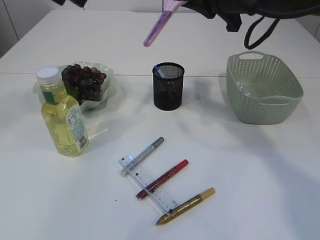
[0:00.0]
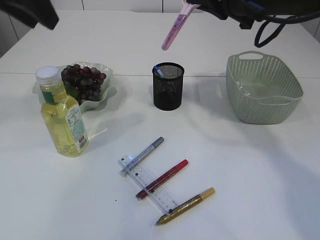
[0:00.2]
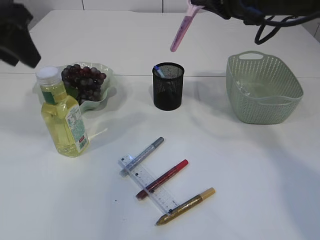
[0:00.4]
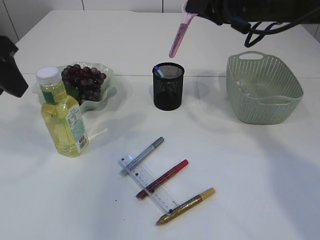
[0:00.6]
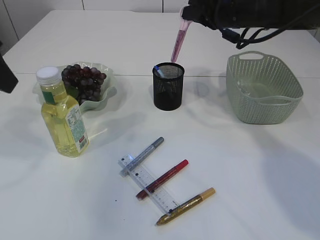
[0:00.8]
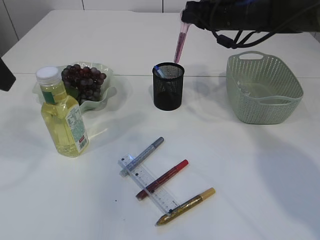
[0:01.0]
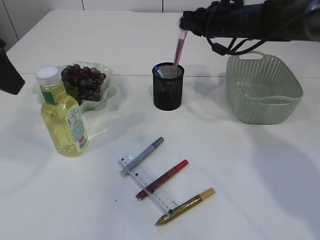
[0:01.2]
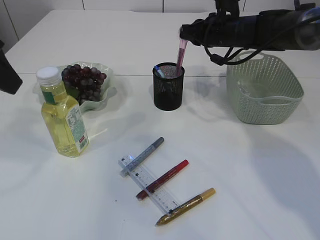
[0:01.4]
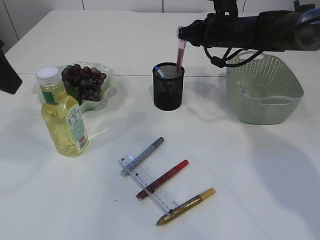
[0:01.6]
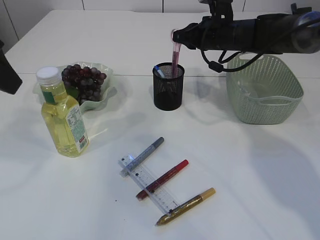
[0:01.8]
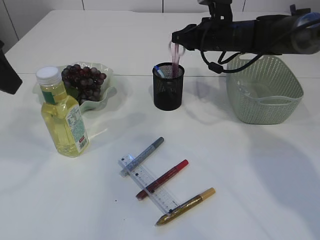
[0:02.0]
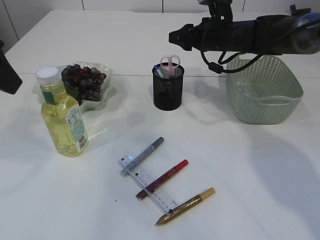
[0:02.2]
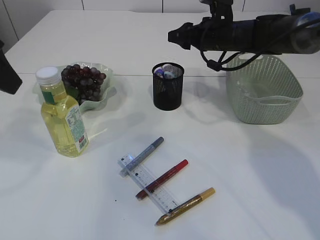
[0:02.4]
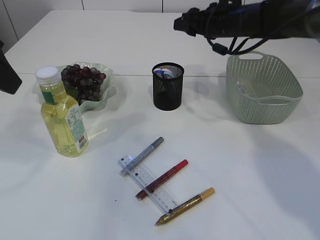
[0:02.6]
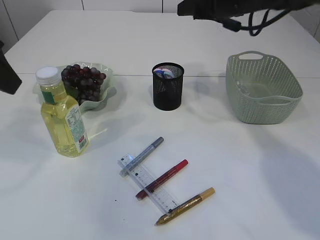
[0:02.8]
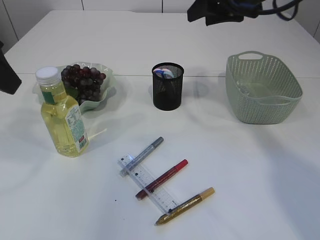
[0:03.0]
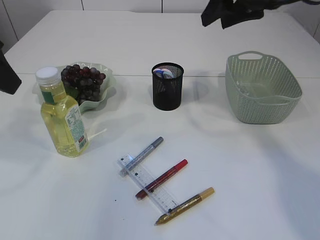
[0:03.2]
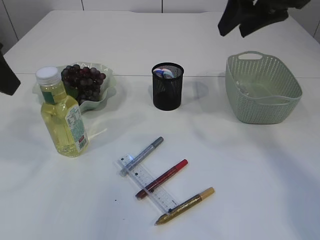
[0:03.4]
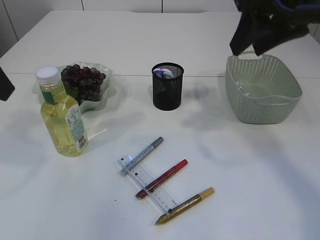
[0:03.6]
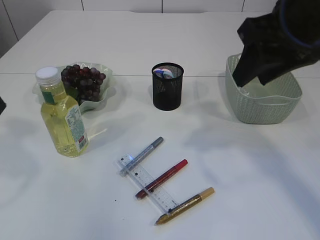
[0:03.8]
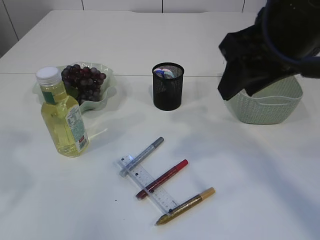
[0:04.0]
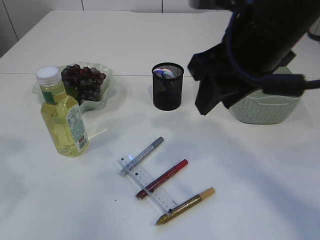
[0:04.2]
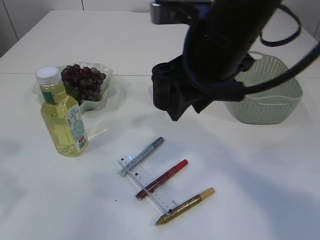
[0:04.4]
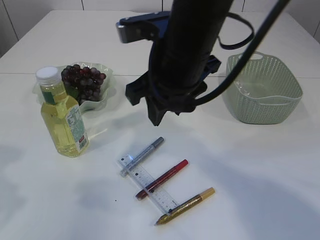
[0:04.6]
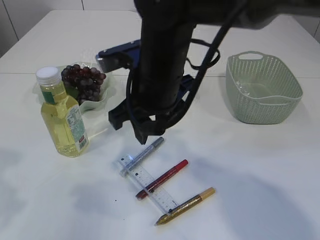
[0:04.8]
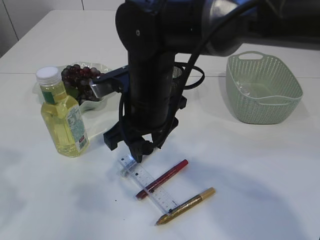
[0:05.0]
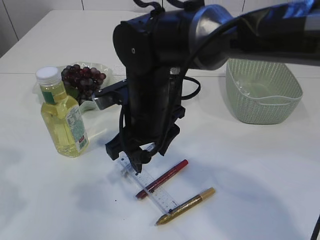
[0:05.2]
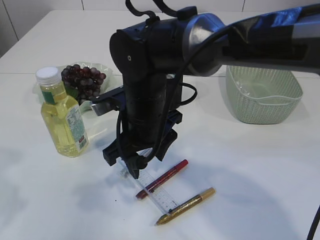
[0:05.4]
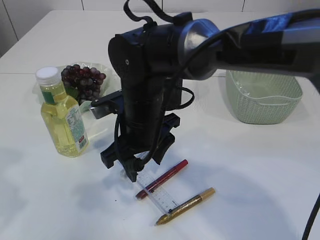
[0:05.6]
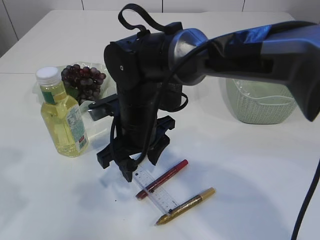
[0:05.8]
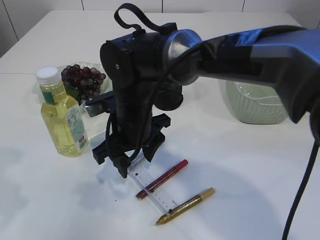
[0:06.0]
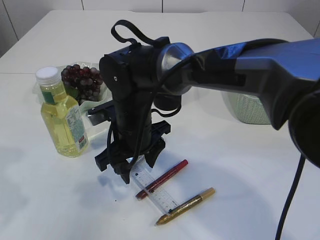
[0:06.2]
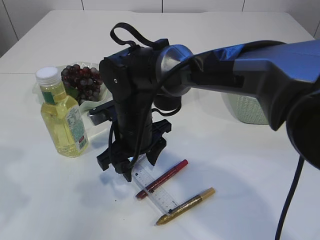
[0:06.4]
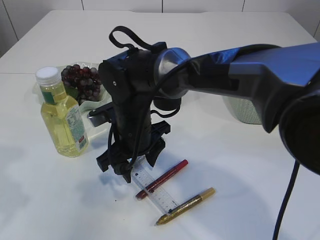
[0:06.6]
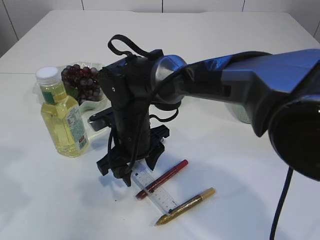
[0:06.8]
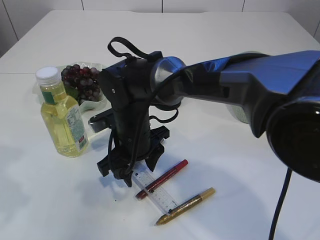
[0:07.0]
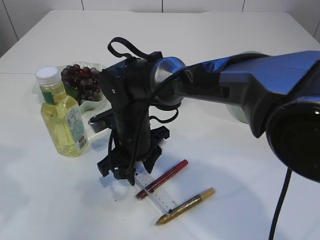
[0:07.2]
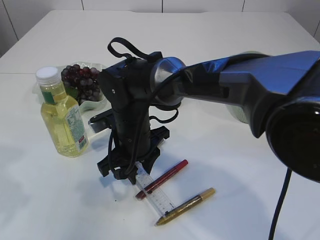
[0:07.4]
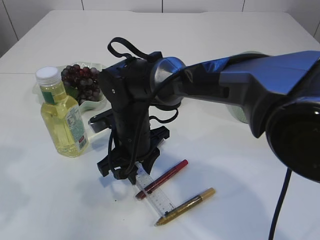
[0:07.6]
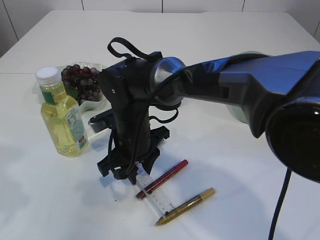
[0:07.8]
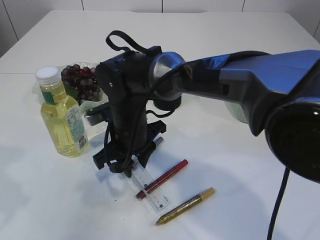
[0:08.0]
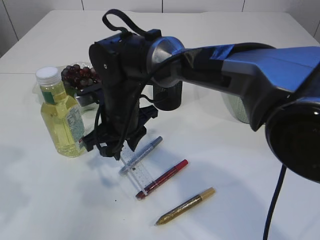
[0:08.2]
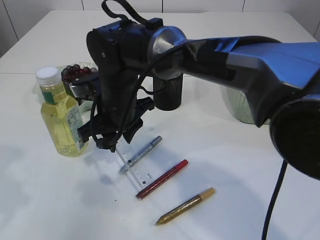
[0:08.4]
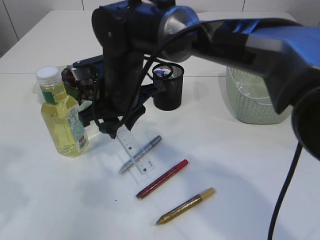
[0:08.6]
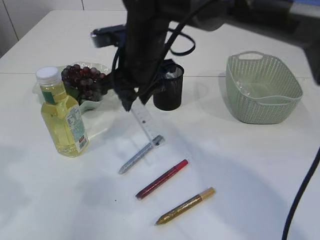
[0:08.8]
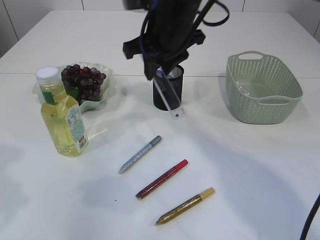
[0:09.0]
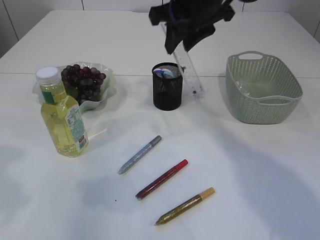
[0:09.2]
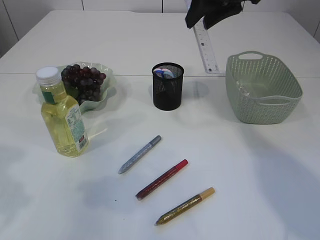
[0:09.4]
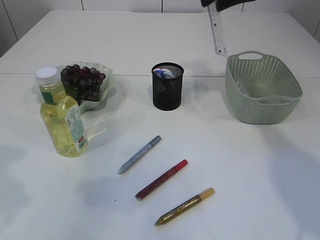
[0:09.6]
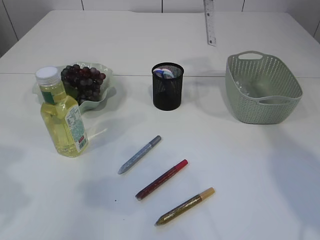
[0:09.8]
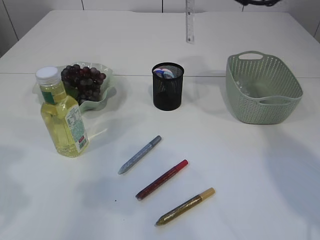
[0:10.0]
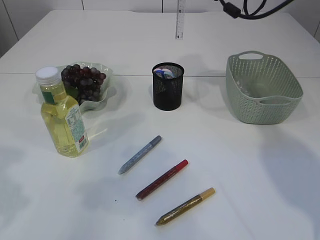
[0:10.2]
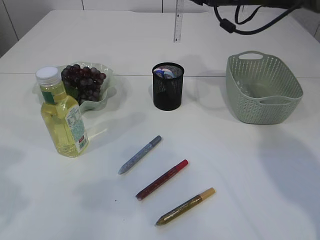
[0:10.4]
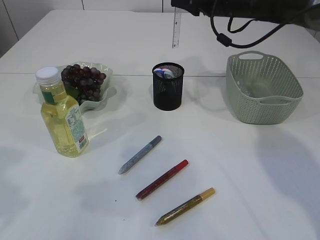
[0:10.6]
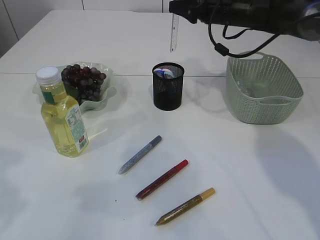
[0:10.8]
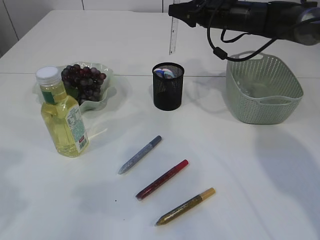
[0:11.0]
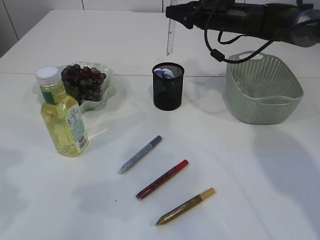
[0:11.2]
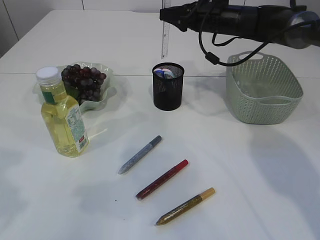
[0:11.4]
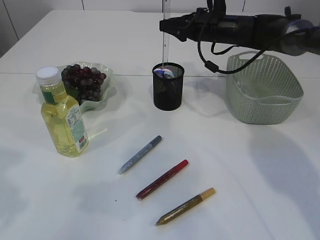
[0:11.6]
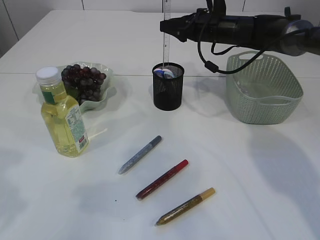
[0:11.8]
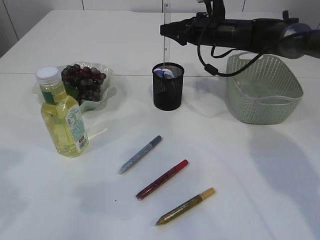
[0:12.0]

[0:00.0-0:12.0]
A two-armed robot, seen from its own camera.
Step, 0:00.4 to 0:02.4: Place the pink scissors into the pen holder.
Step, 0:02.6 to 0:08.6: pick up the ruler.
0:00.0 to 0:01.6: The left gripper heads backward, downward and to the left, covering approximately 10 cm. Meanwhile the right gripper moves forward and downward, approximately 15 cm.
0:01.6 to 0:03.0: The right gripper heads upward and backward, covering approximately 15 cm, and opens up.
0:03.0 to 0:04.4: The left gripper shifts some 10 cm backward and downward. The right gripper is displaced backward and to the left by some 15 cm.
0:04.4 to 0:06.0: The right gripper travels downward and to the left by roughly 20 cm.
0:06.0 to 0:07.6: The right gripper closes.
0:07.6 to 0:09.0: The right gripper heads upward and to the right, covering about 20 cm.
0:09.0 to 0:10.4: The right gripper shifts some 20 cm to the right and forward.
0:10.4 to 0:12.0: The right gripper is displaced downward by approximately 10 cm.

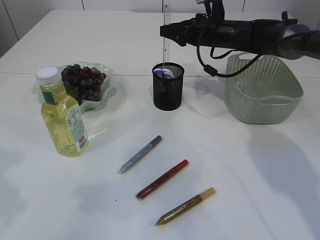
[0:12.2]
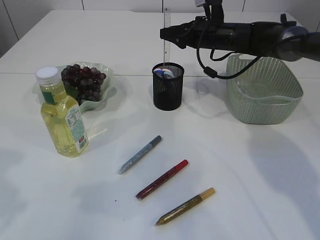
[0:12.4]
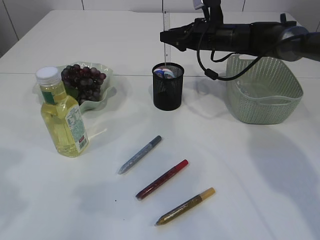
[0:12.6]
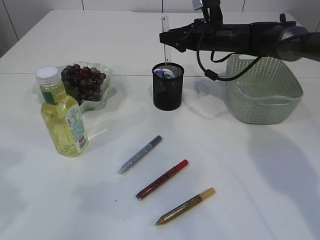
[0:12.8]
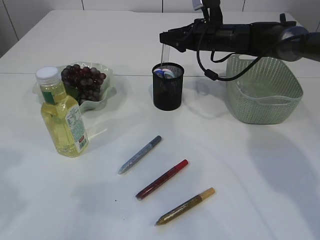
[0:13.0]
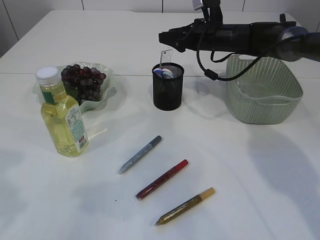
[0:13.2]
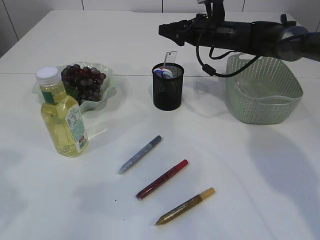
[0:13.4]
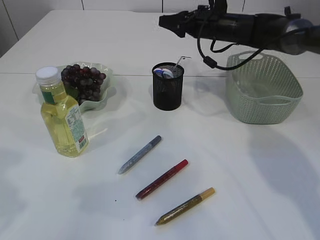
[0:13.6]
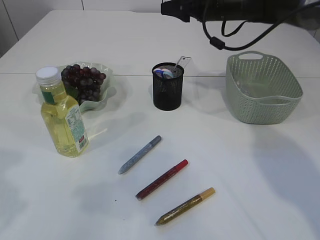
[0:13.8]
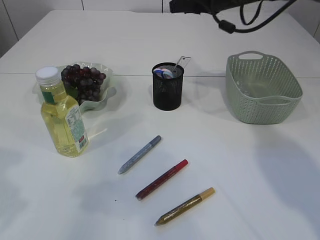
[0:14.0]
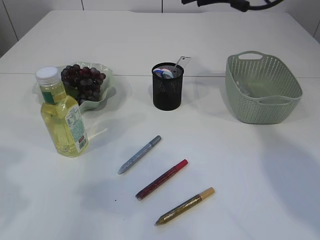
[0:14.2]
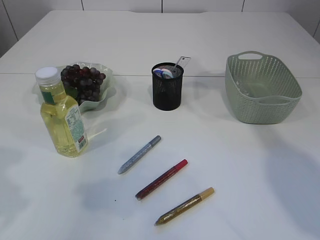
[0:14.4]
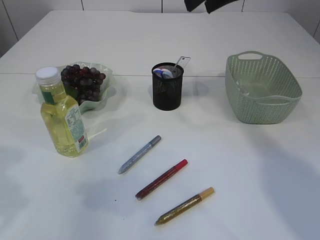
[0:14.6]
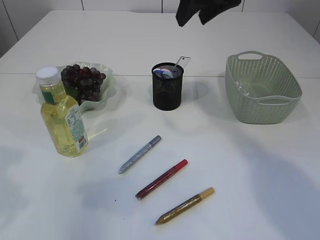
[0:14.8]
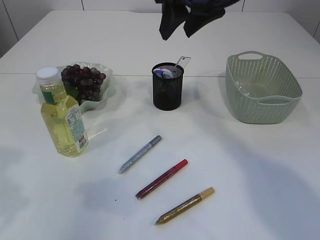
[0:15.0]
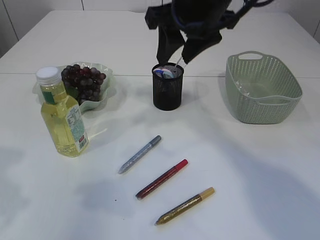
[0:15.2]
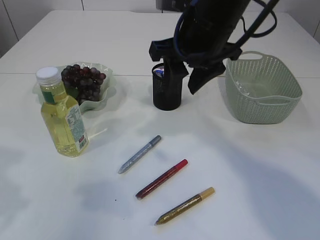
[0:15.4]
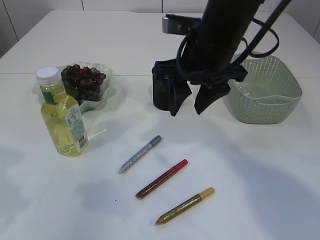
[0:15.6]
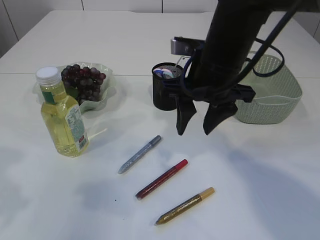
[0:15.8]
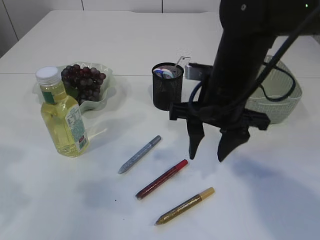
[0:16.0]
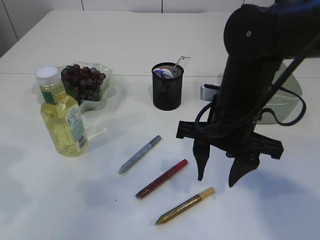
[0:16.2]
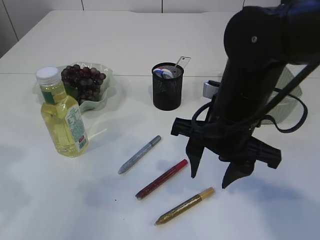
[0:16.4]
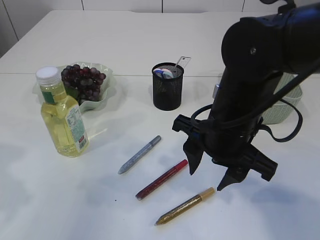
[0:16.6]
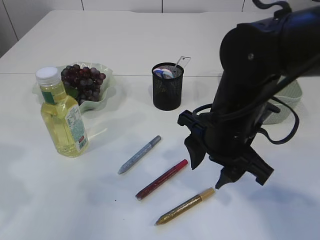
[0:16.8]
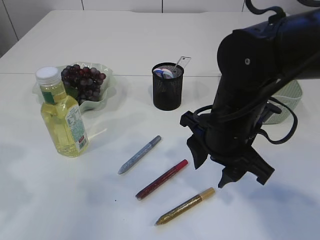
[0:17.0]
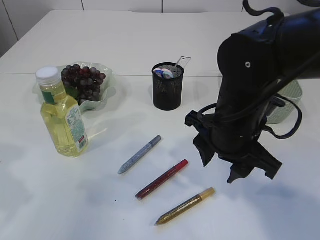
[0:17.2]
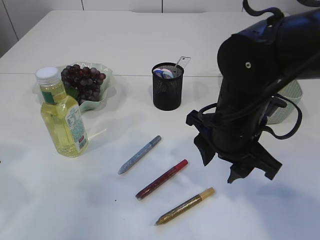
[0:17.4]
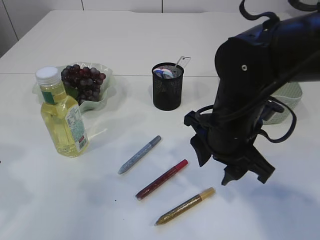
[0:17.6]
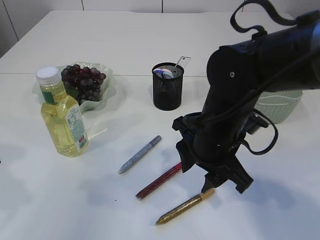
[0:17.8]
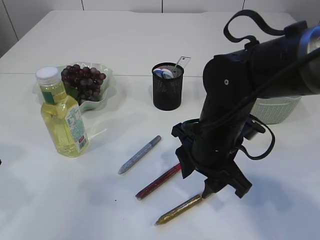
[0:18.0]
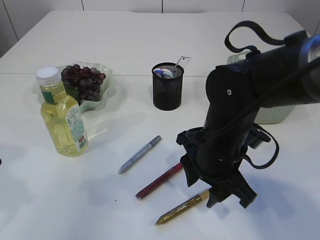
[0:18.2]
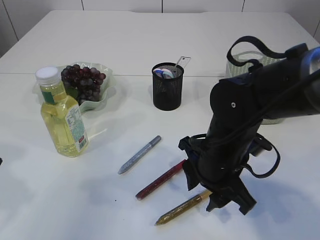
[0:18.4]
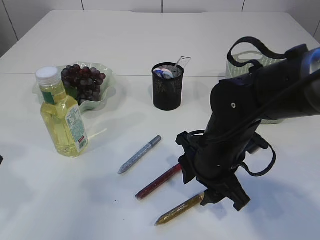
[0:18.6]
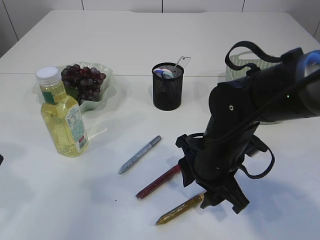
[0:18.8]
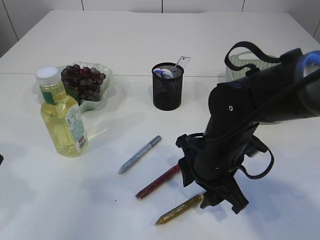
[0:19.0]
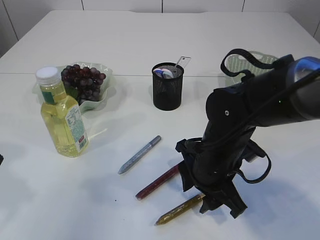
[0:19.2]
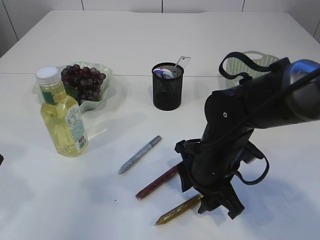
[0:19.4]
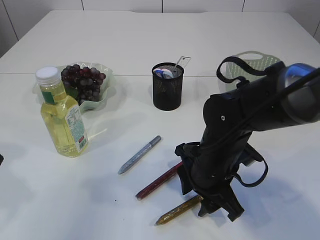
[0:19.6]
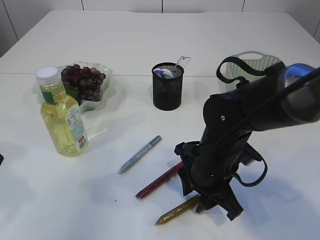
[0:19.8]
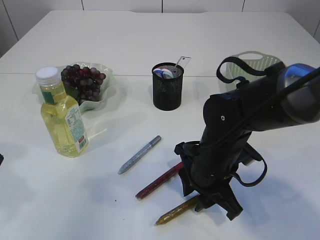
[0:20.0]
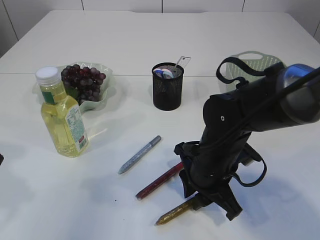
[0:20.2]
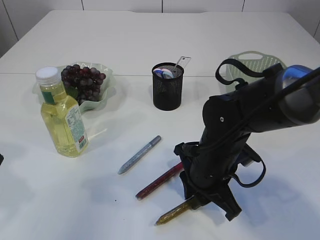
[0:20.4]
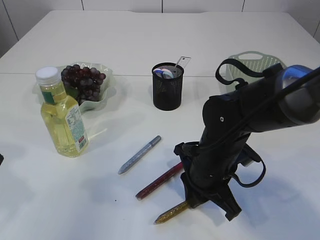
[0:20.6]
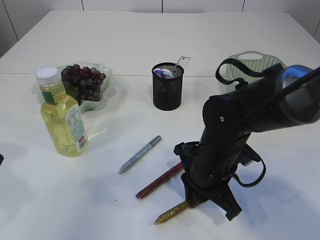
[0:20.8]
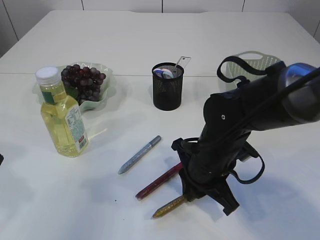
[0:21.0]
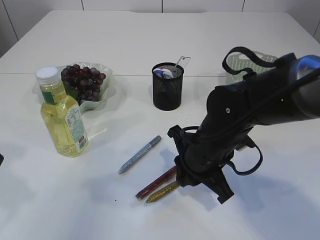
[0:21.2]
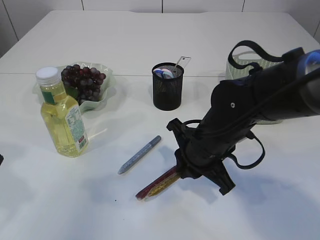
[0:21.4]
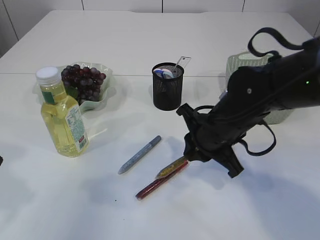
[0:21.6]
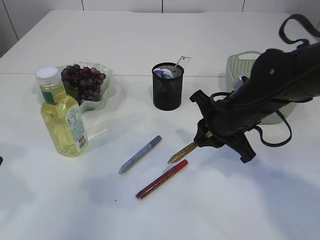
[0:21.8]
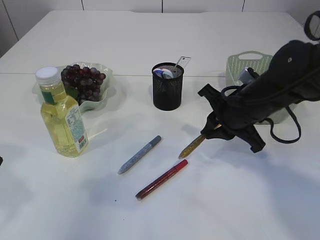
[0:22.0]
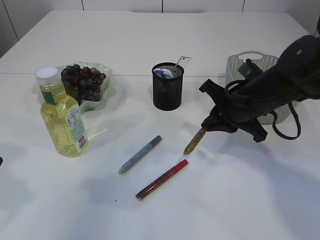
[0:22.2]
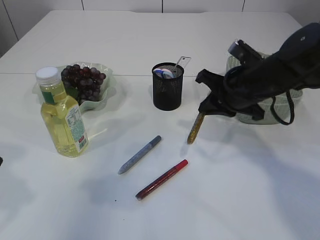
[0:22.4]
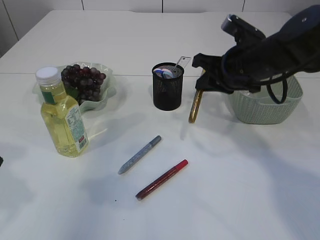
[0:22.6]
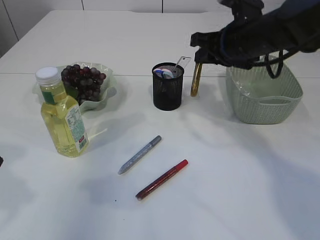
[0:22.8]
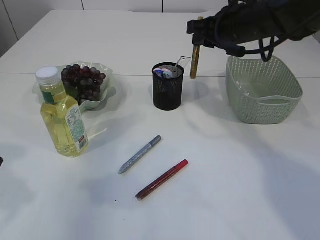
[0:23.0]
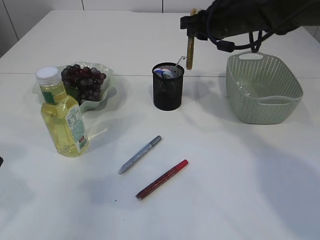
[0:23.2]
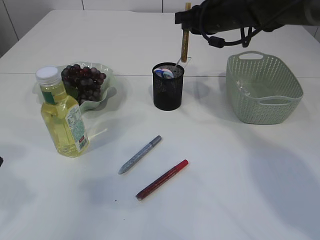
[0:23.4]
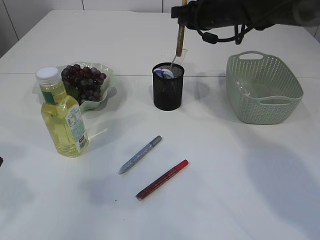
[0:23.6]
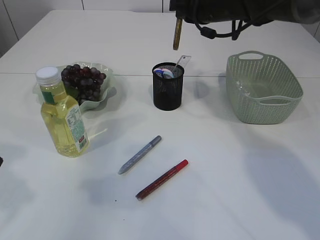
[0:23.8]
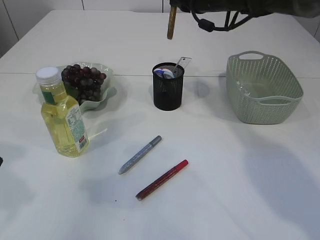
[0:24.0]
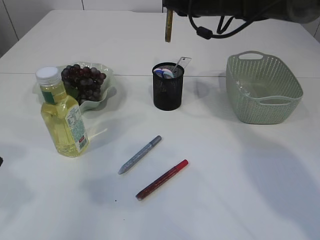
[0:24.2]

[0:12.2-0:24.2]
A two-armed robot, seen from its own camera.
Step, 0:13.8 to 0:22.0: pick up the yellow glue.
0:12.2 to 0:13.8: The right gripper travels upward by about 5 cm.
0:13.8 to 0:15.2: The right gripper moves backward and to the left, approximately 20 cm.
0:15.2 to 0:16.6: The right gripper is displaced downward and backward by about 15 cm.
0:16.6 to 0:18.2: The right gripper travels downward by approximately 5 cm.
0:18.2 to 0:19.8: The grippers stay close to where they were, moving slightly.
0:19.8 to 0:21.2: The right gripper closes.
0:21.2 to 0:22.6: The right gripper moves forward, upward and to the right, some 15 cm.
0:22.6 to 0:24.2: The right gripper is displaced forward and upward by some 15 cm.
